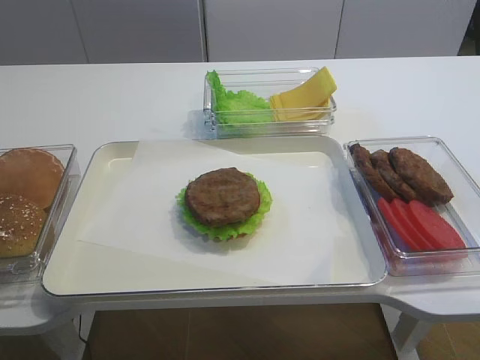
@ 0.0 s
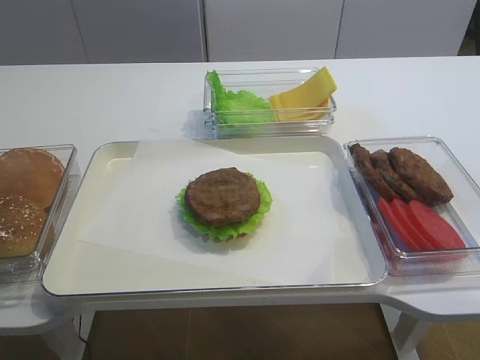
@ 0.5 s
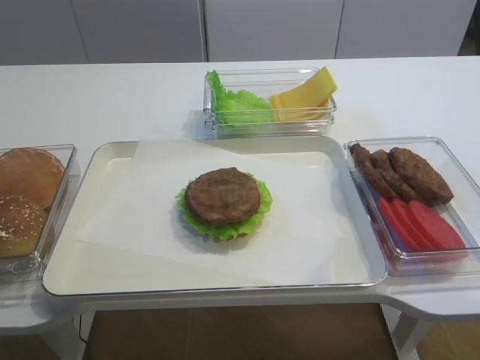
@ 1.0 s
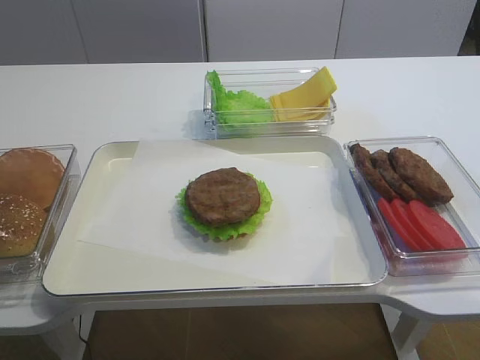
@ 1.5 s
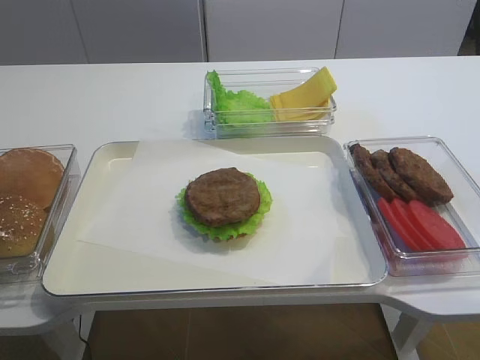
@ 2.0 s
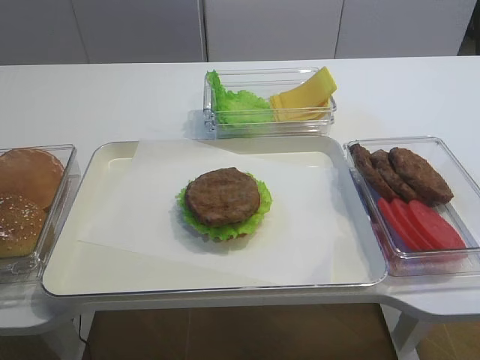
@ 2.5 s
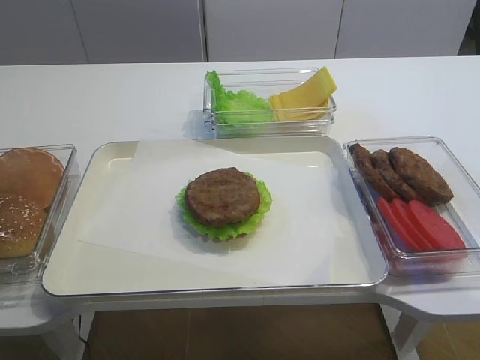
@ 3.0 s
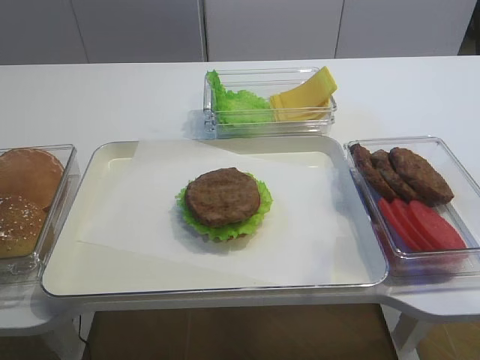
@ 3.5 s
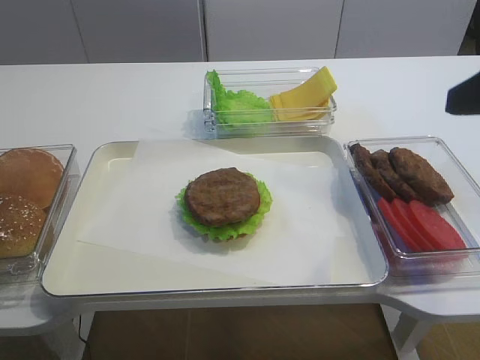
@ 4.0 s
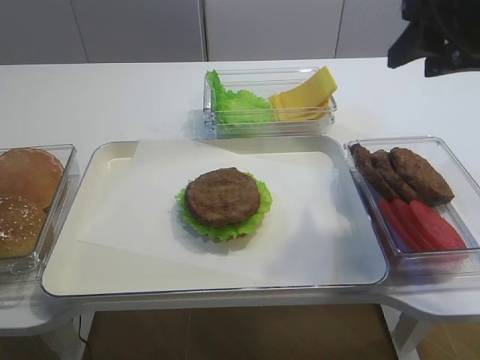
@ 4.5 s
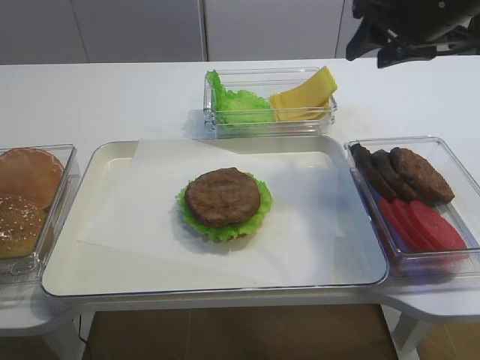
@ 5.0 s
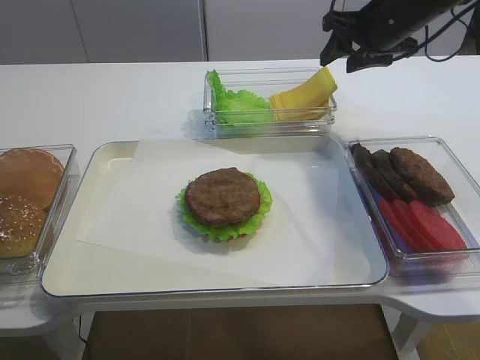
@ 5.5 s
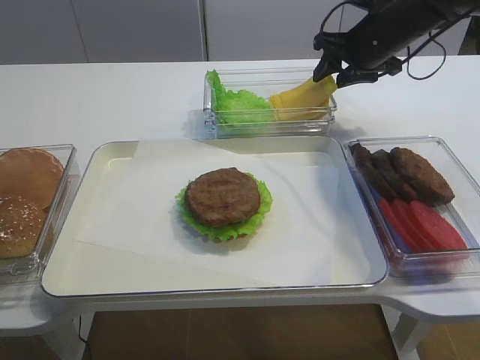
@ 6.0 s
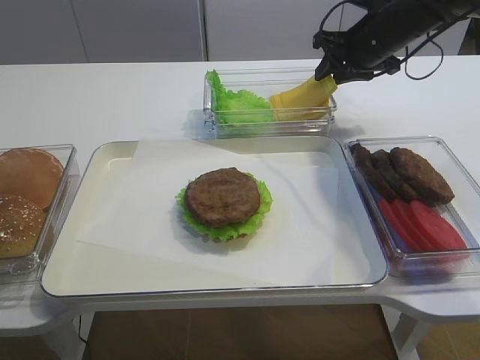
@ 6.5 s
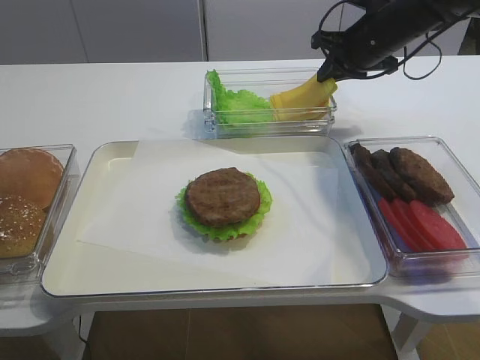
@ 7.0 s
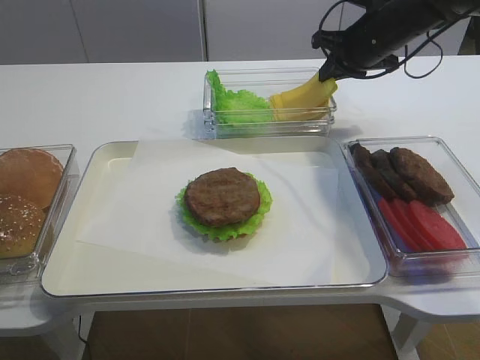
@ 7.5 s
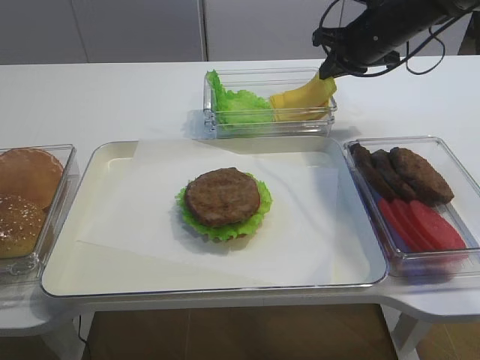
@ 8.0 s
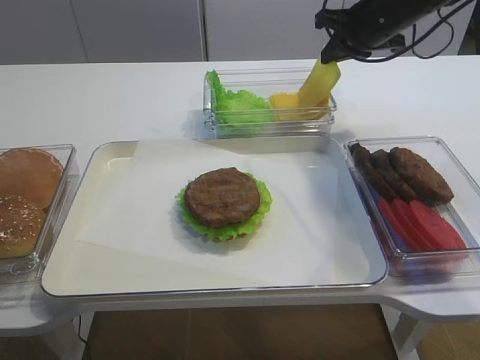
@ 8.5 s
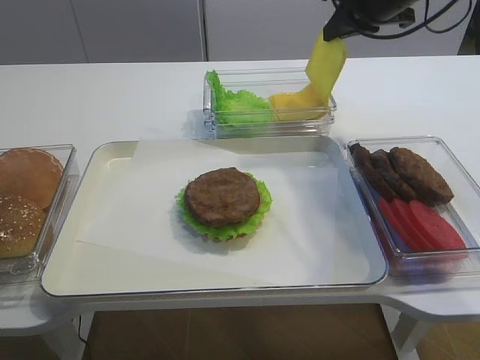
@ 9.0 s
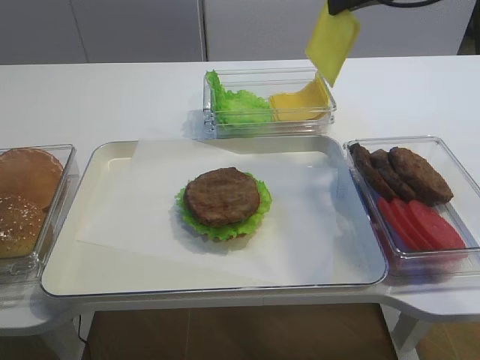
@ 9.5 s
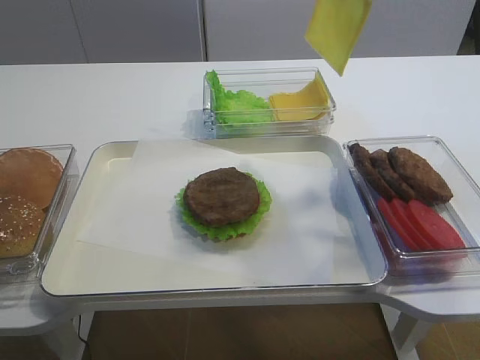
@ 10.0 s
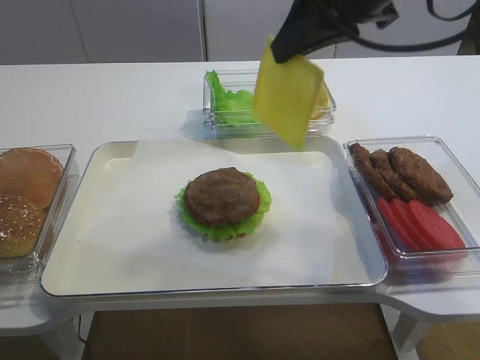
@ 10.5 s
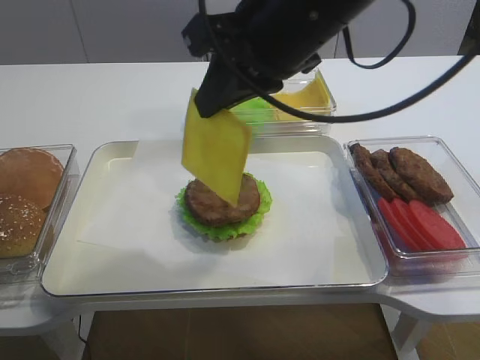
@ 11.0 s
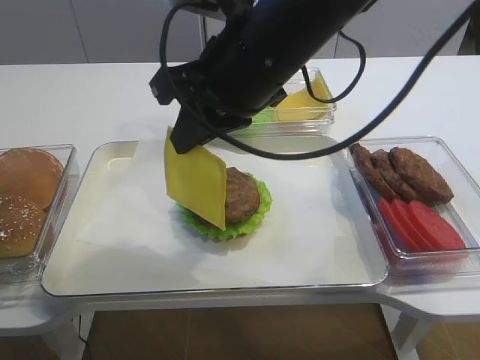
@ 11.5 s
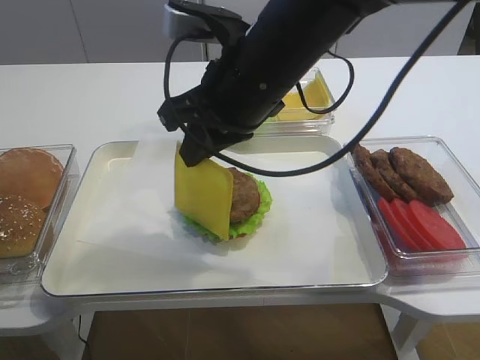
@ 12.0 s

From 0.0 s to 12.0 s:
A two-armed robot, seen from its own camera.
Step, from 0.0 s to 9.5 s: Pick up the cheese slice with the right gripper.
From 2.0 s to 4.0 s: The right gripper travels forward by some 20 cm, and opens its fingers.
From 4.0 s to 6.0 s: The right gripper heads forward, covering some 30 cm.
From 6.0 s to 8.0 s: The right gripper closes up.
From 8.0 s to 10.0 s: The right gripper heads upward and backward, covering approximately 20 cm.
From 10.0 s to 12.0 s: The right gripper moves to the left, downward and backward, roughly 20 cm.

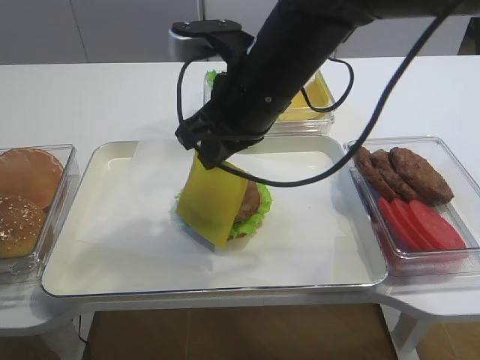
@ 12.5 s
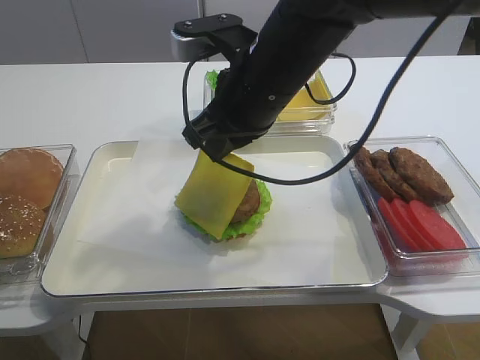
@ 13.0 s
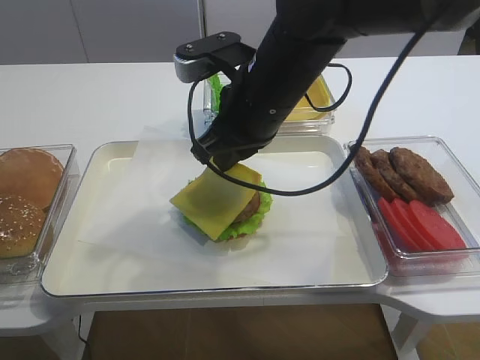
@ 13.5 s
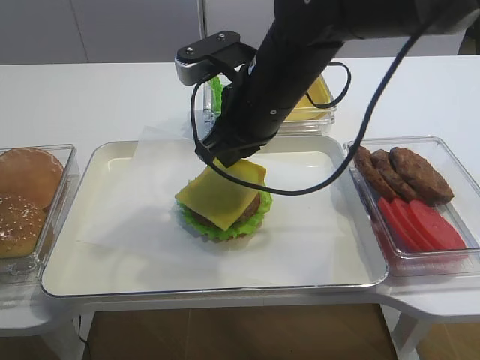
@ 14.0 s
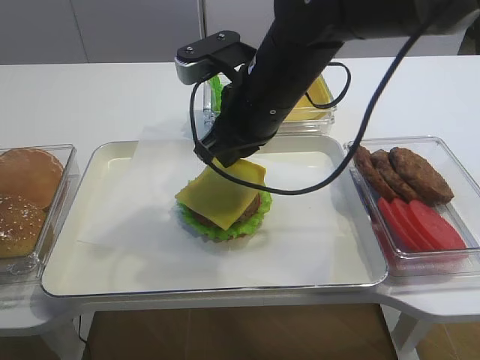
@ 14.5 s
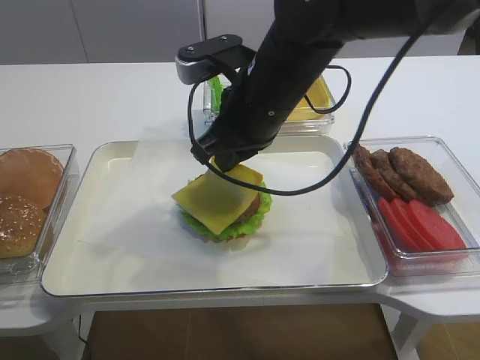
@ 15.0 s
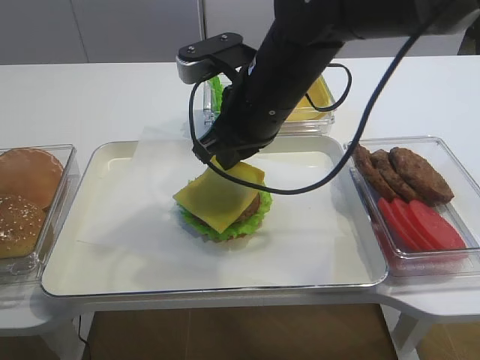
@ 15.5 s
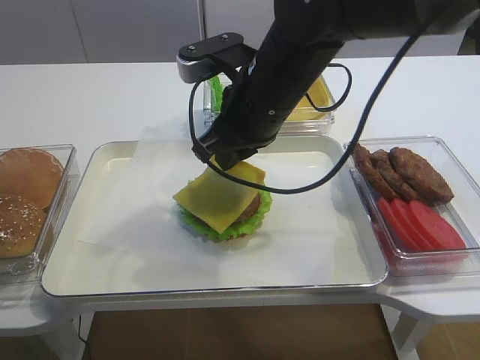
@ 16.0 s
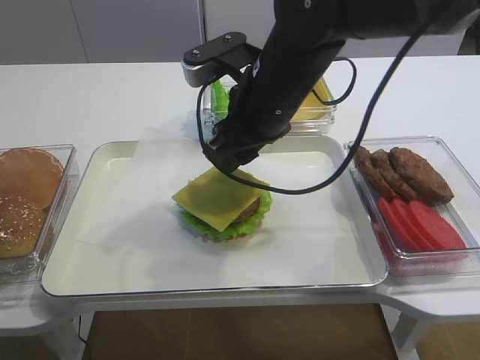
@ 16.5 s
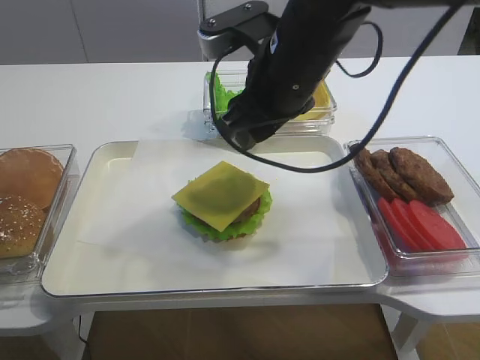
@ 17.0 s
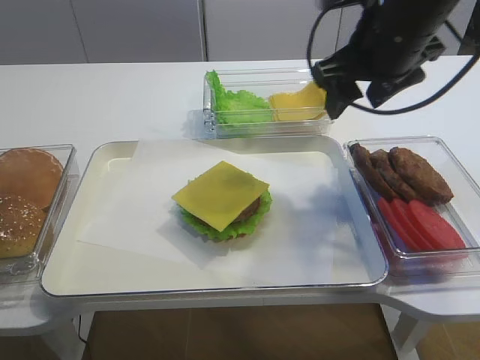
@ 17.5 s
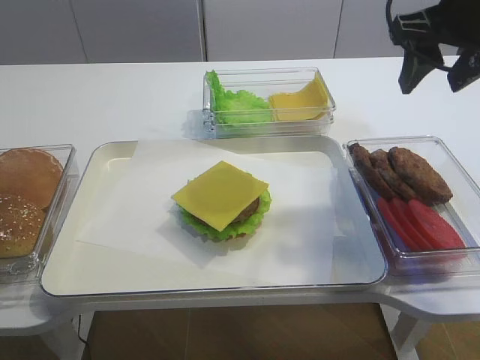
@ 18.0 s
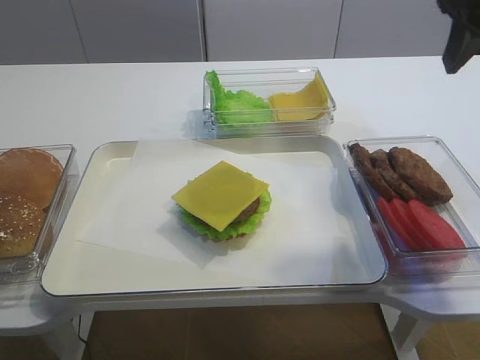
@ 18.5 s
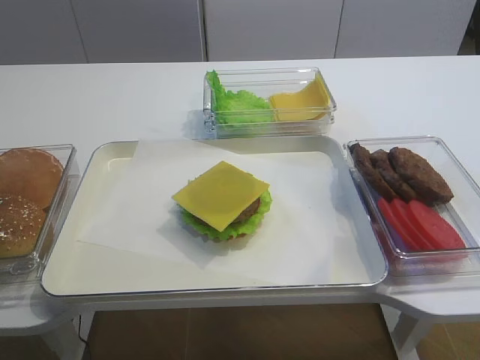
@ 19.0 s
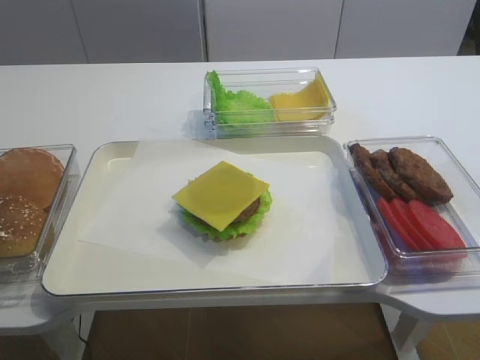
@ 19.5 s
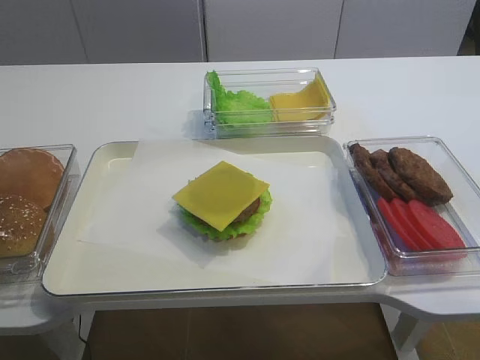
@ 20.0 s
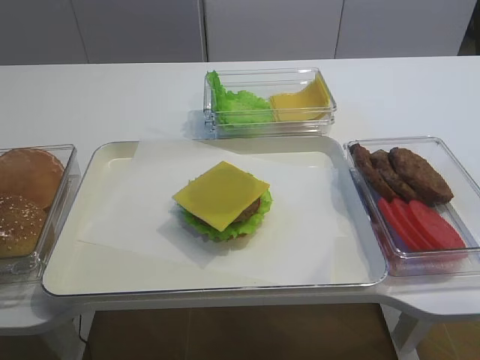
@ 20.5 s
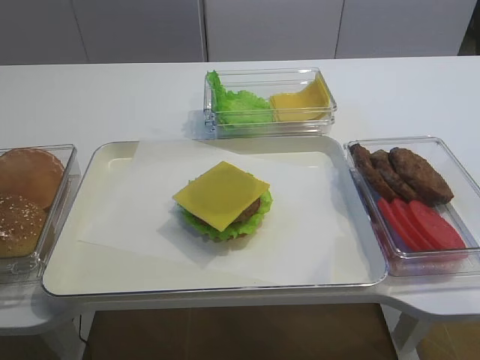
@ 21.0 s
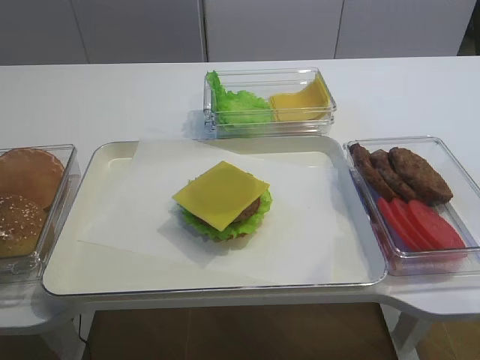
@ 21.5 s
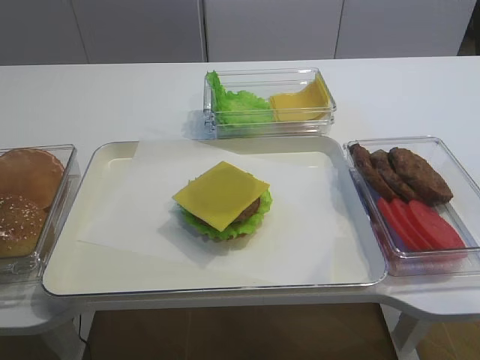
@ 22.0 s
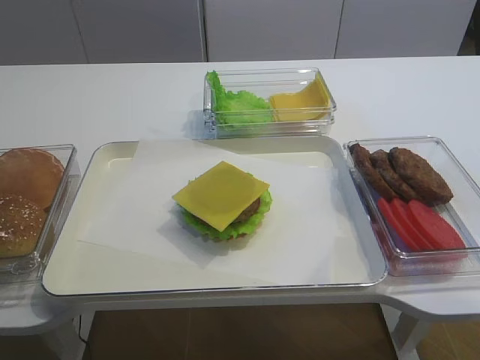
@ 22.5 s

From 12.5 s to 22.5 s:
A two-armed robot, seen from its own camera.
Step, from 12.5 s to 17.0 s: Place the cheese slice on the cutlet with the right gripper.
From 12.5 s to 14.5 s: The grippers make only small movements.
From 14.5 s to 16.5 s: The right gripper opens up.
From 16.5 s to 18.5 s: The right gripper shifts roughly 25 cm to the right and upward.
From 18.5 s to 20.5 s: The right gripper travels backward by some 30 cm.
From 20.5 s to 22.5 s: The two grippers keep their place.

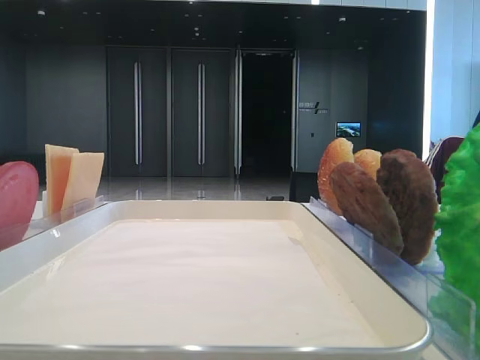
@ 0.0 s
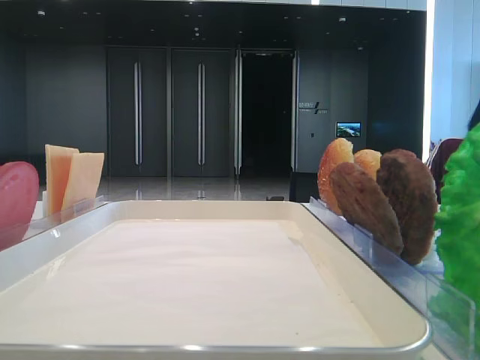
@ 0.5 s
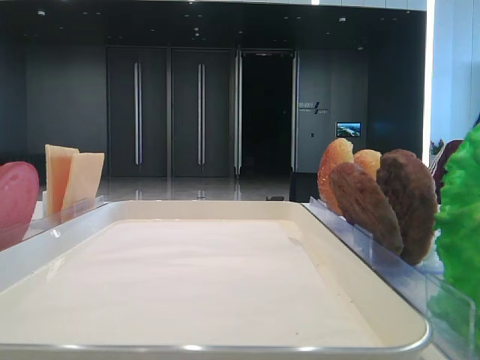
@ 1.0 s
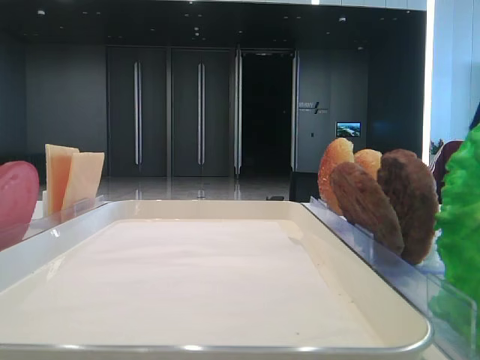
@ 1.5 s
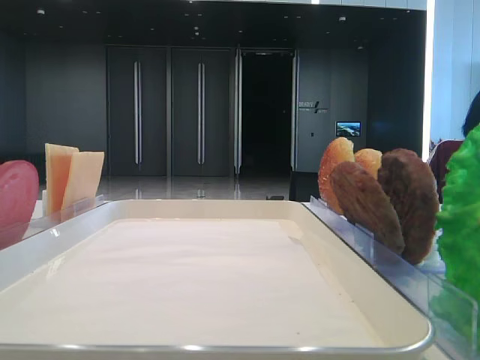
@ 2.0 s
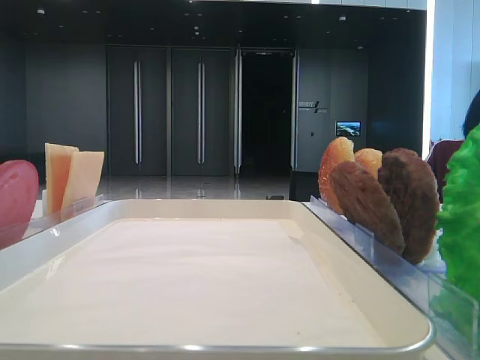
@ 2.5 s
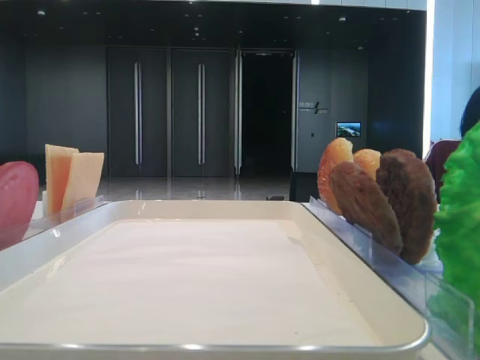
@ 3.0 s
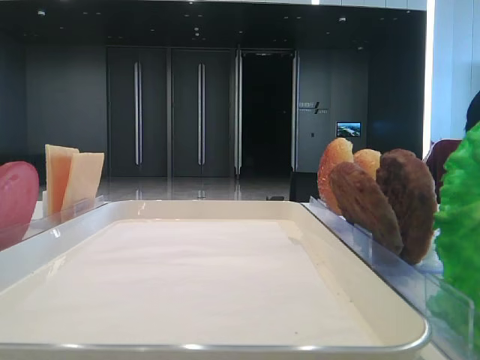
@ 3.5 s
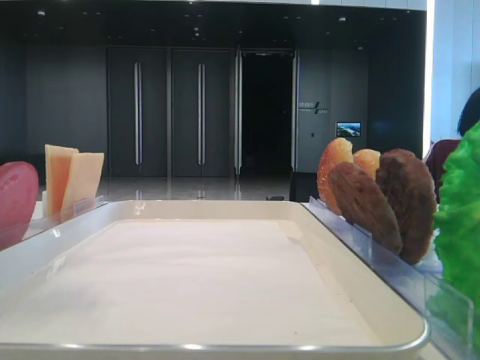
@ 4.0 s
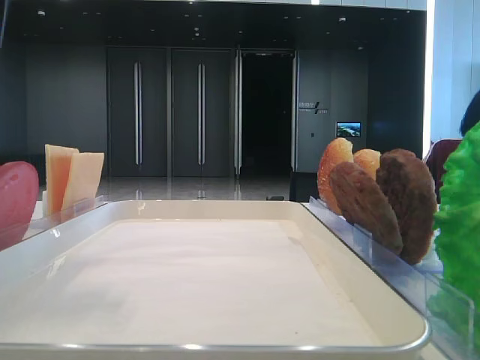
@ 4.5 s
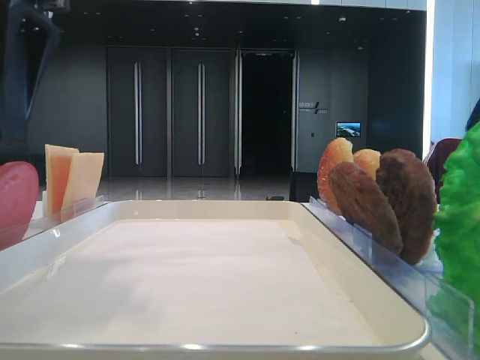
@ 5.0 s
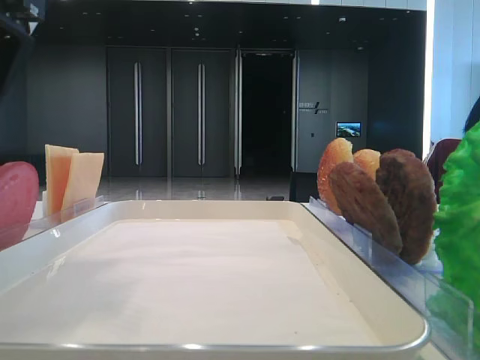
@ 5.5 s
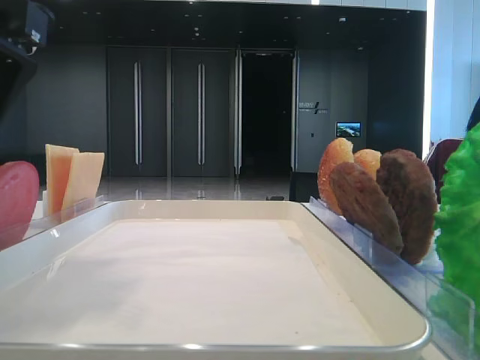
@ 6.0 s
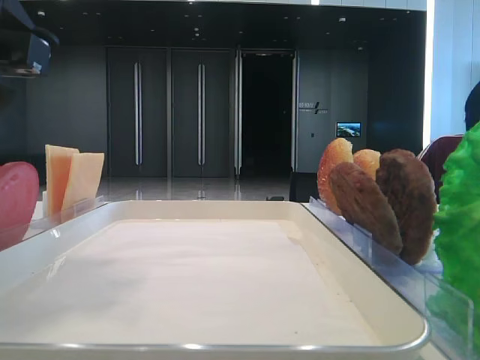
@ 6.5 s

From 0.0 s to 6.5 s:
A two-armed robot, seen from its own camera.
From 2.0 s to 4.5 s: The left gripper heads to the right and forward, covering approximately 15 cm.
From 4.5 s to 6.5 s: The left gripper travels downward by approximately 5 cm, and closes its fingers.
